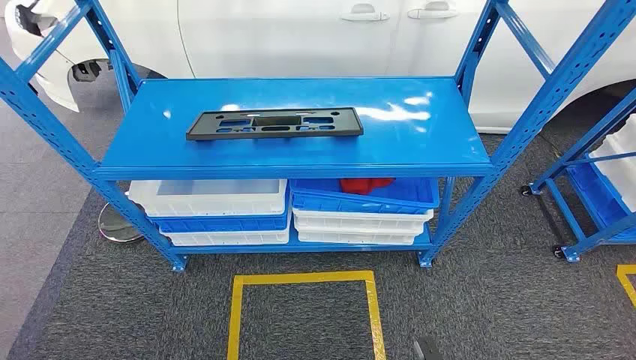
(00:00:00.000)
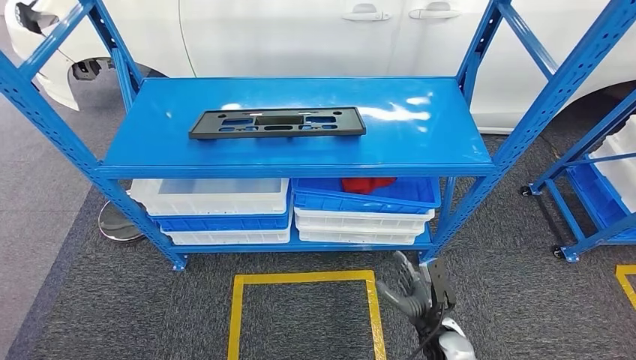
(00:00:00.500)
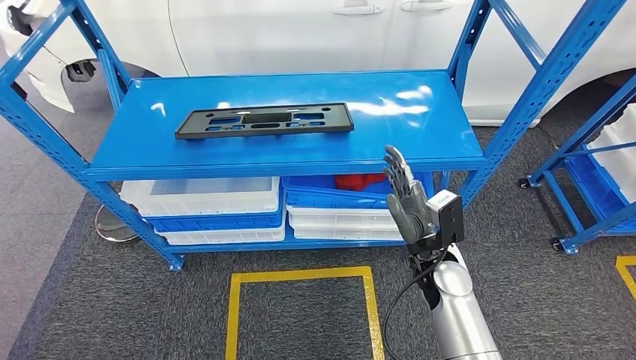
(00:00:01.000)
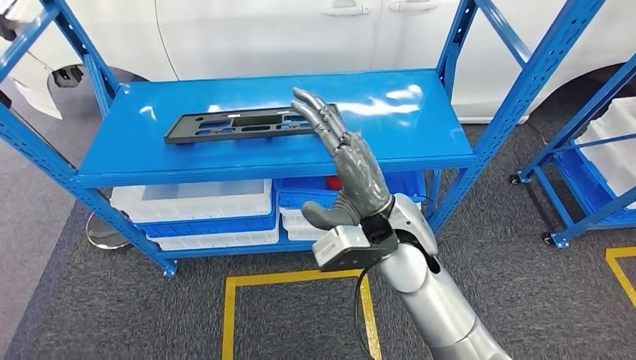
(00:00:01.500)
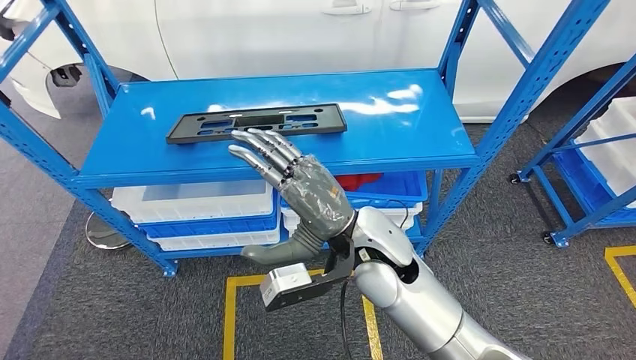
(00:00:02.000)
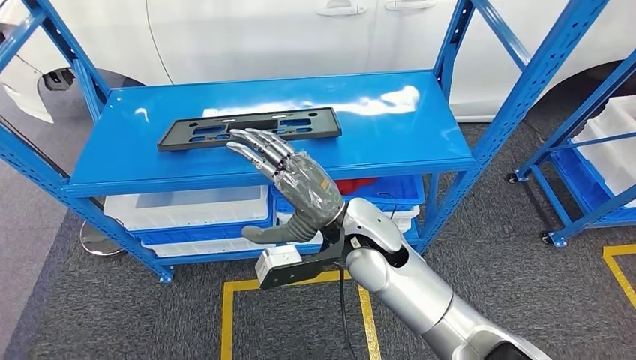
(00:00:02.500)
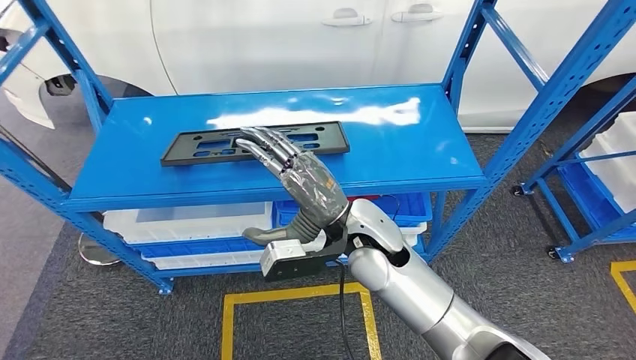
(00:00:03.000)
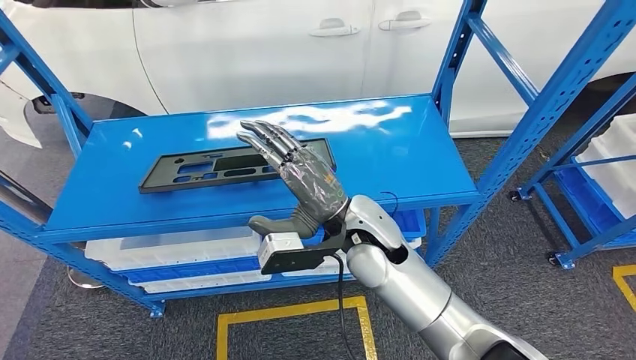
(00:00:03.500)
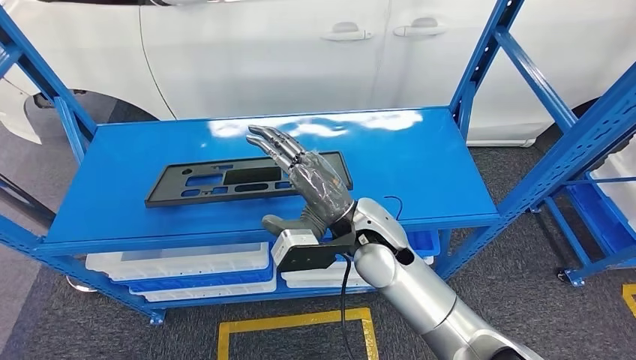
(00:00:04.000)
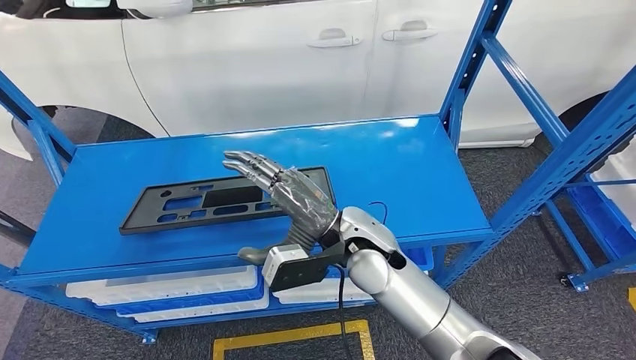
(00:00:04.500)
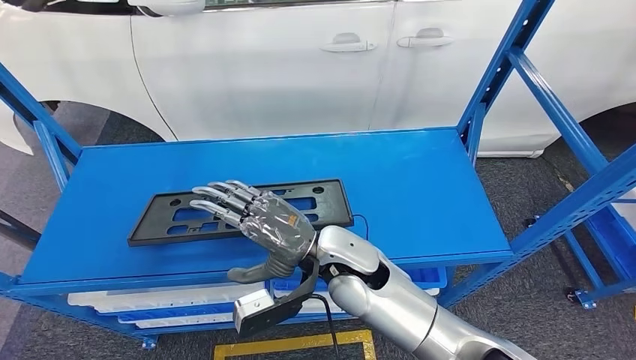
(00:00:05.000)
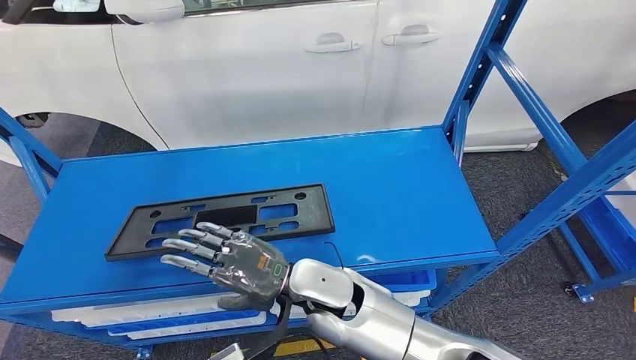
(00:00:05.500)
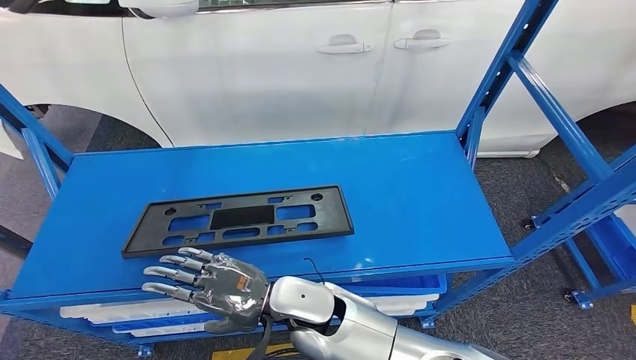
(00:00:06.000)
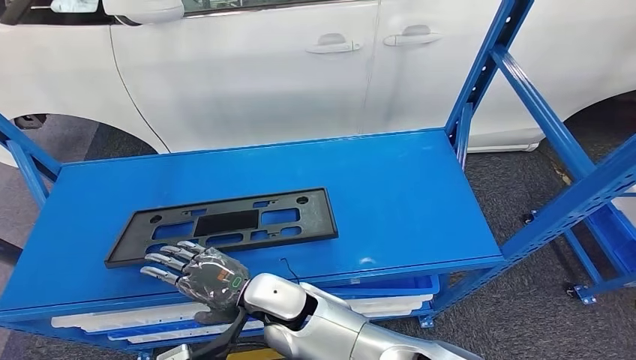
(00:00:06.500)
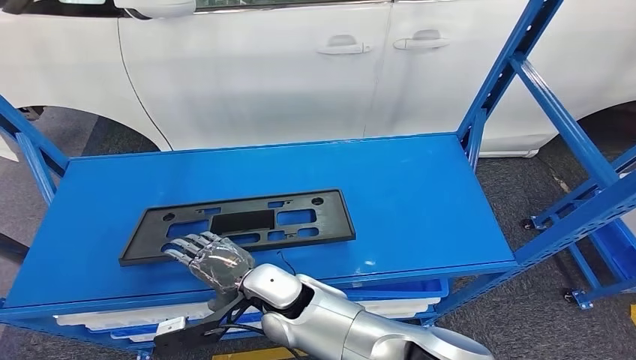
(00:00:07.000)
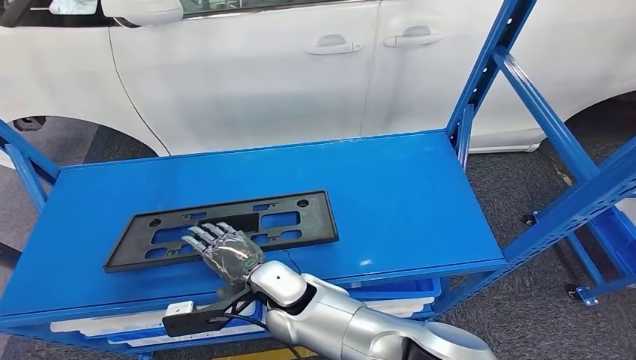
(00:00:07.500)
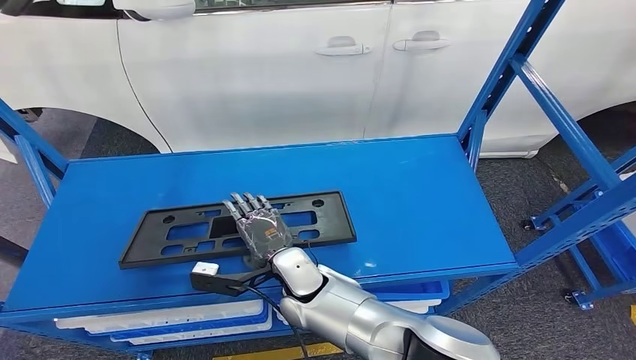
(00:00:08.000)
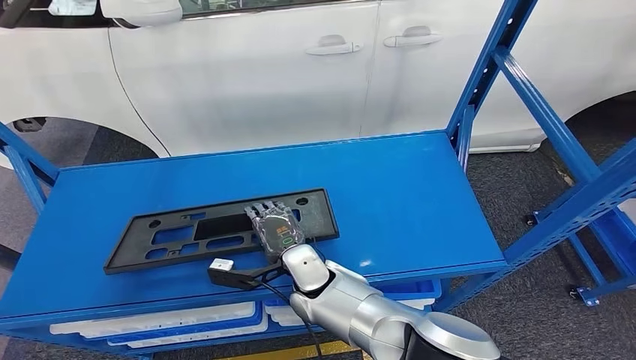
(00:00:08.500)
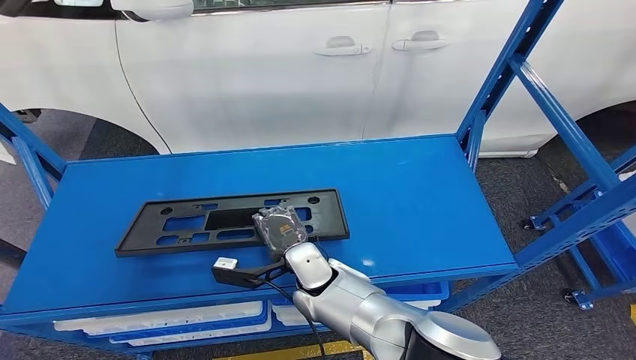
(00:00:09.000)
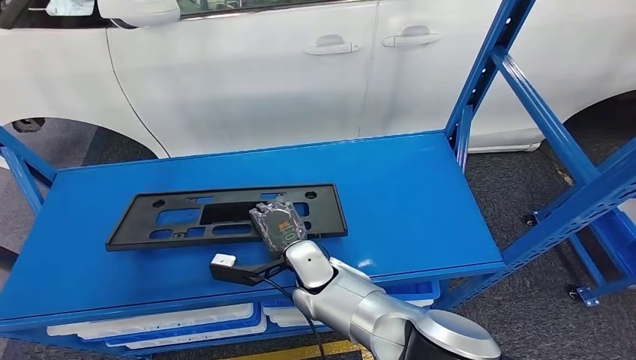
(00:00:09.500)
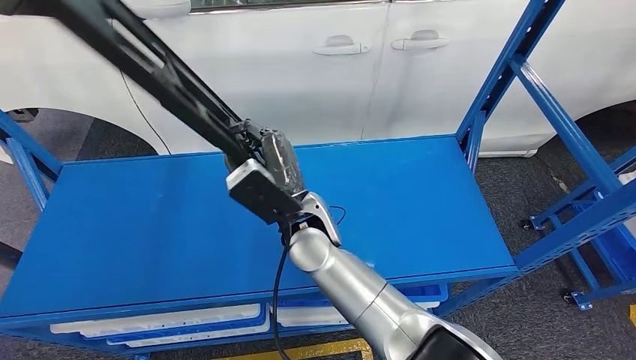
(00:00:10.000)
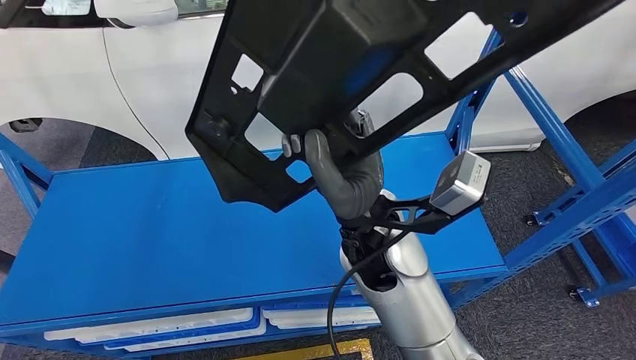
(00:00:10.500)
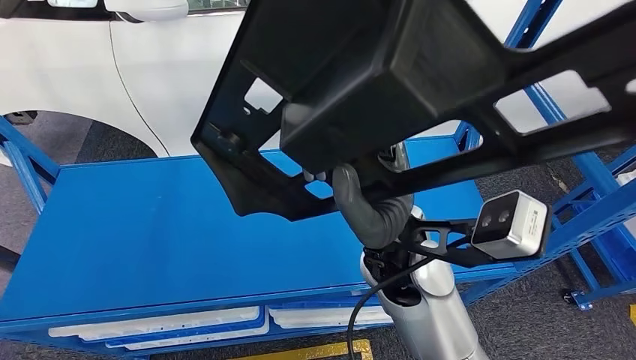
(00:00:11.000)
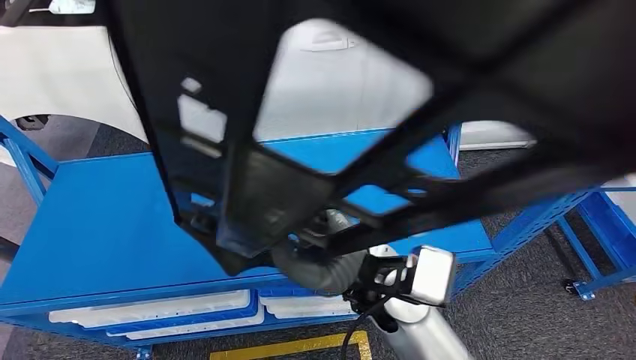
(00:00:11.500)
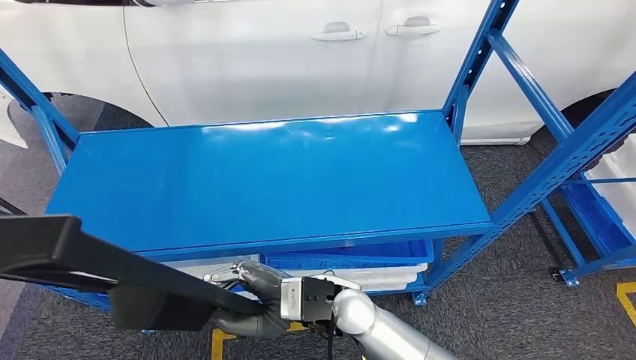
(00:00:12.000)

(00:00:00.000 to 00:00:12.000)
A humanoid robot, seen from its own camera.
Step, 00:00:00.000 - 00:00:11.000: Take small components from the rack.

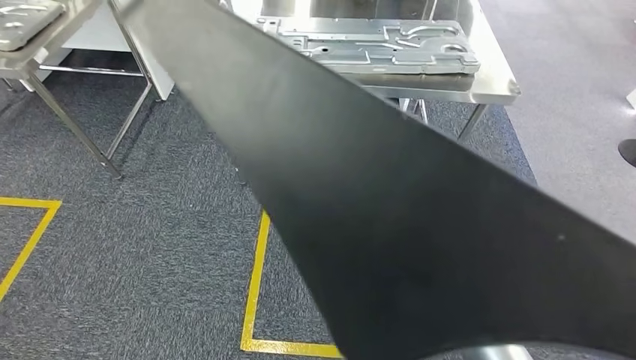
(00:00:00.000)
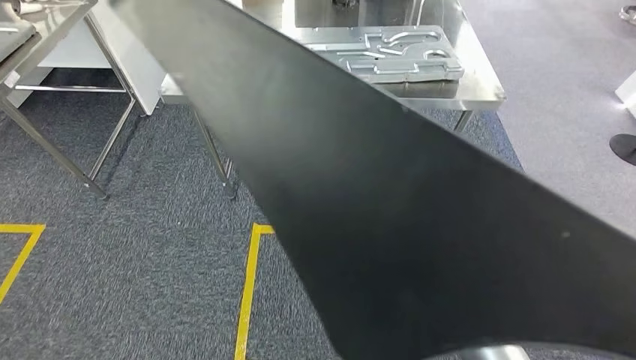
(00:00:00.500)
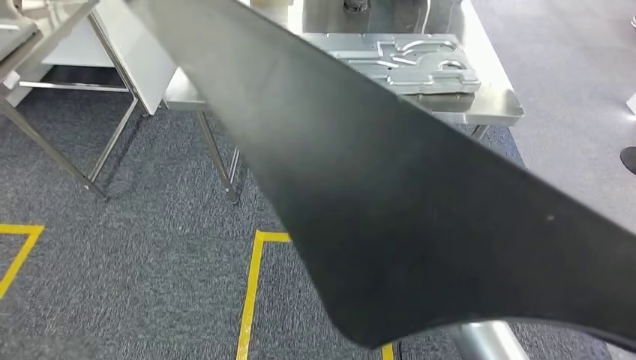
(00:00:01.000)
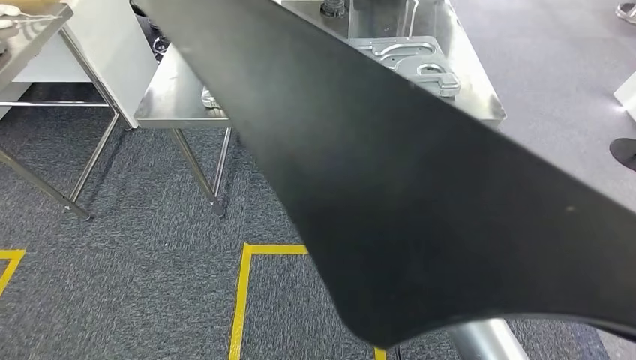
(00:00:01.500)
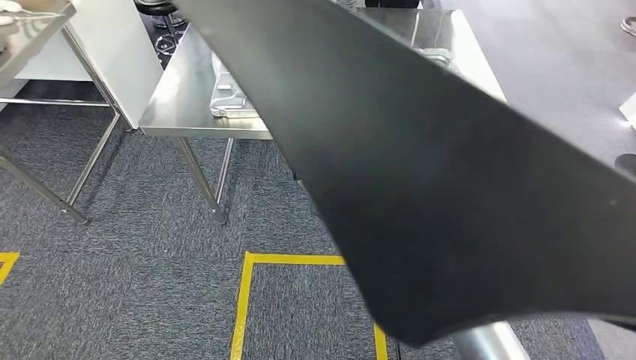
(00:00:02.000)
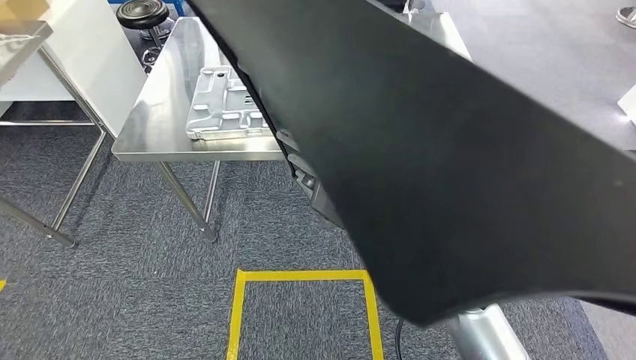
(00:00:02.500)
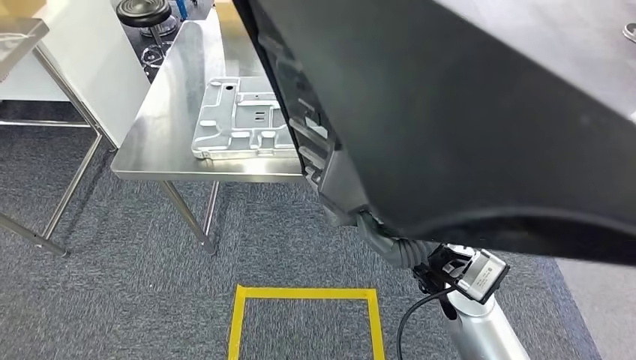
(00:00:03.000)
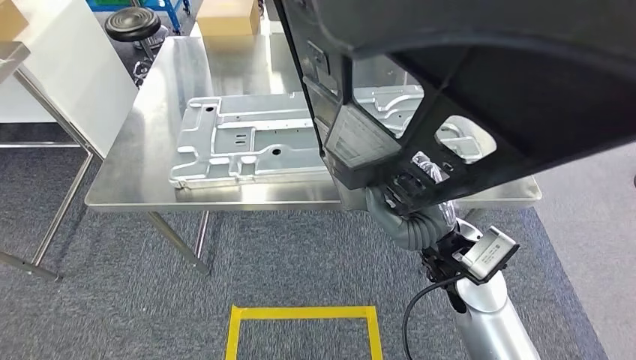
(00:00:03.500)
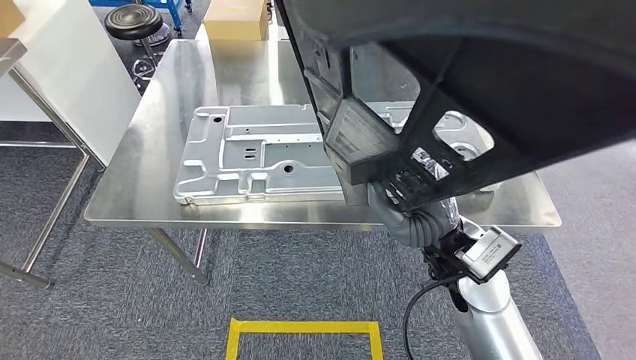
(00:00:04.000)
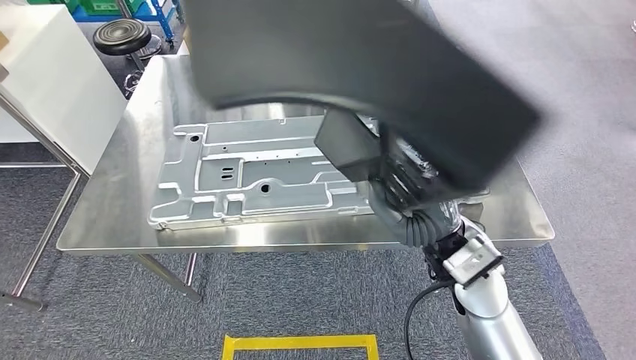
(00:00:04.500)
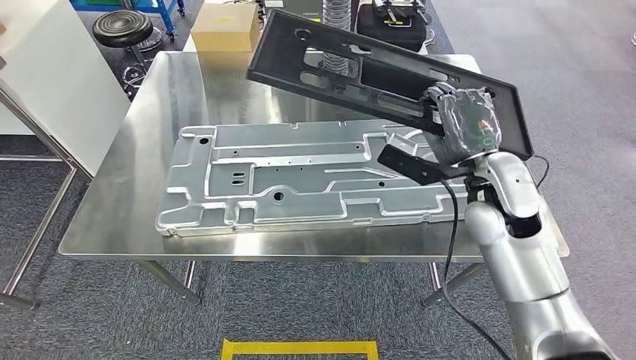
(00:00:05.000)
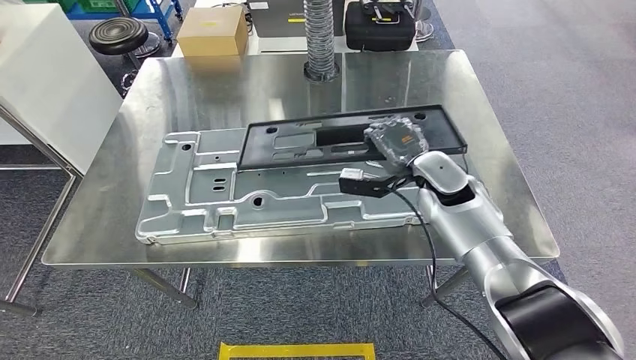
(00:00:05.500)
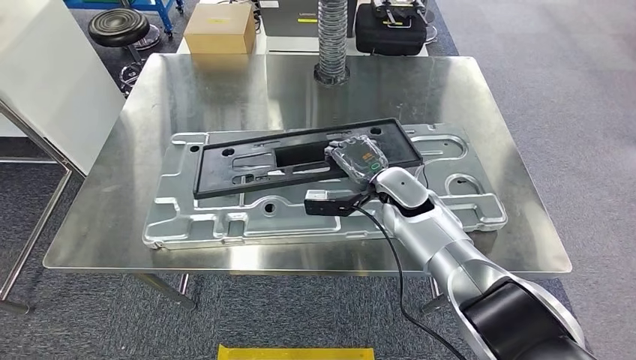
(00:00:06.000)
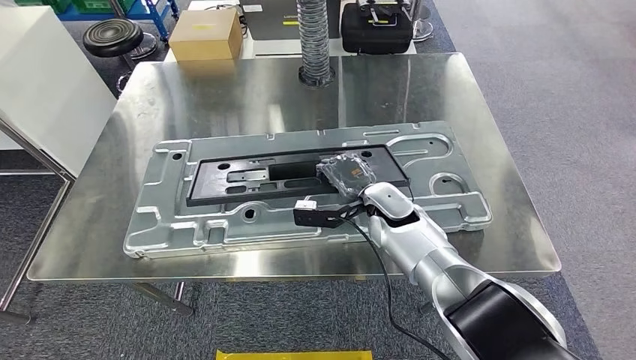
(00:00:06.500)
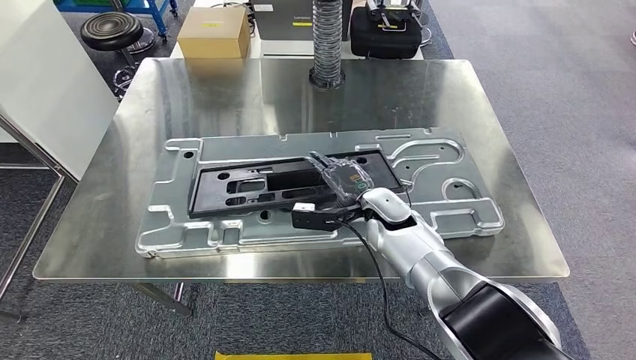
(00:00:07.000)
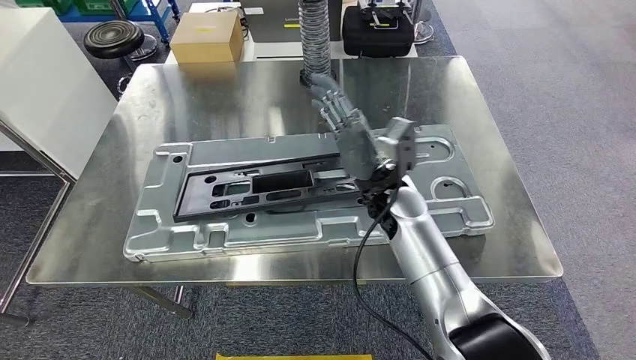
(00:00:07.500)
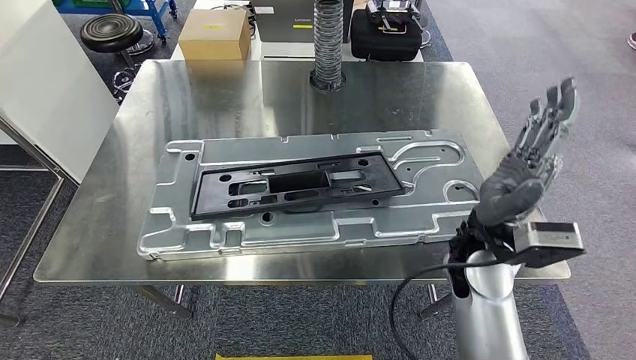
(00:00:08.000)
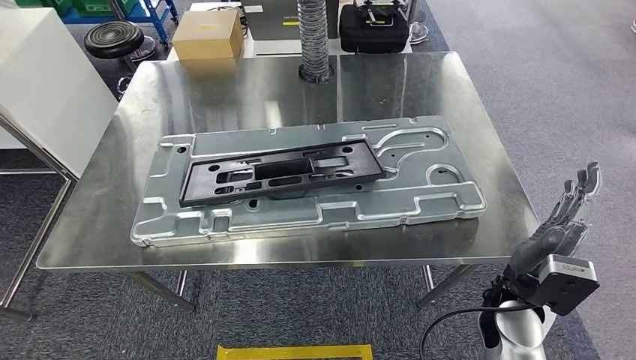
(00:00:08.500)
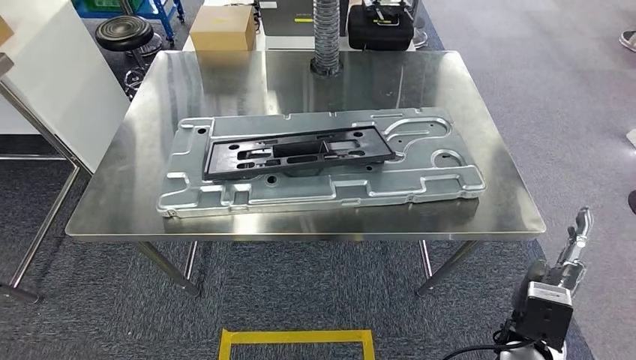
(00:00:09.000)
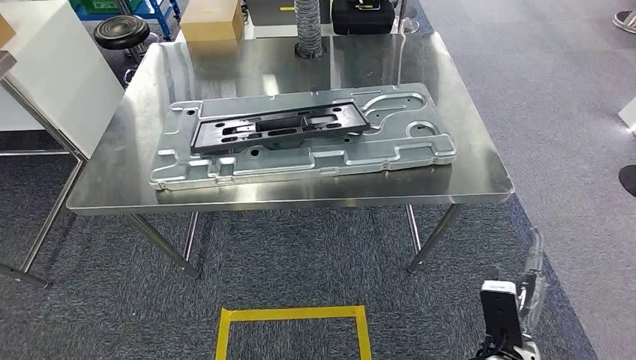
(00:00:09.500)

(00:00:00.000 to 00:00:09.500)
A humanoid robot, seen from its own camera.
Step, 00:00:00.000 - 00:00:04.500: Move the small parts to the workbench.
Step, 00:00:05.000 - 00:00:08.500: Insert the small parts into the corresponding holes on the workbench.
